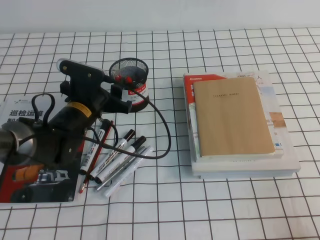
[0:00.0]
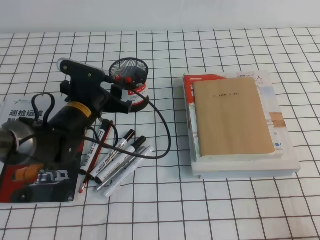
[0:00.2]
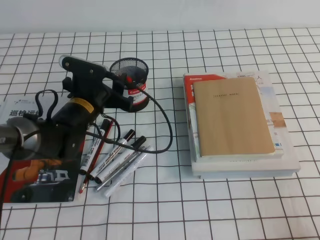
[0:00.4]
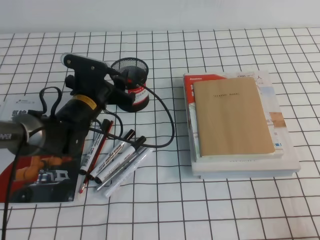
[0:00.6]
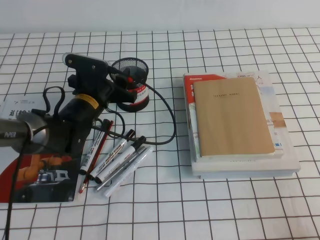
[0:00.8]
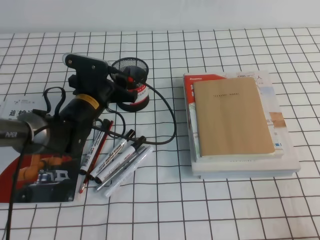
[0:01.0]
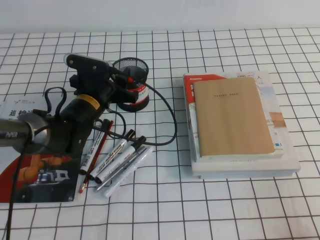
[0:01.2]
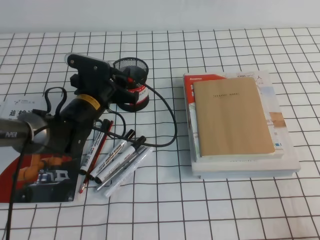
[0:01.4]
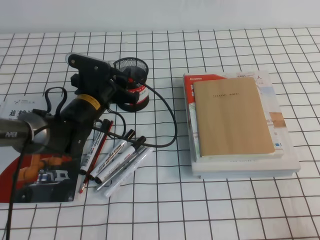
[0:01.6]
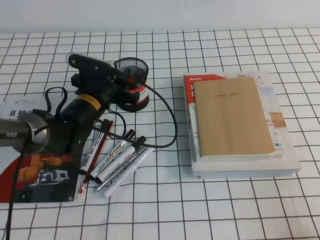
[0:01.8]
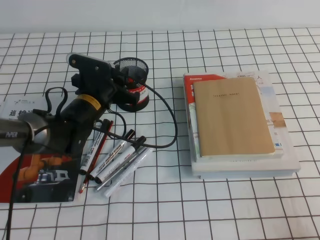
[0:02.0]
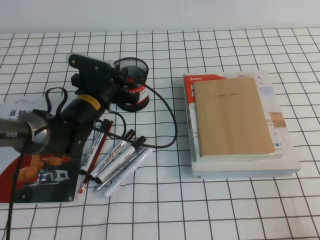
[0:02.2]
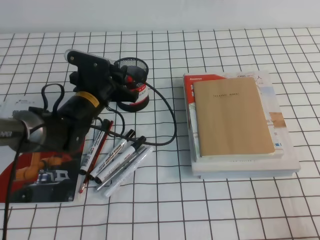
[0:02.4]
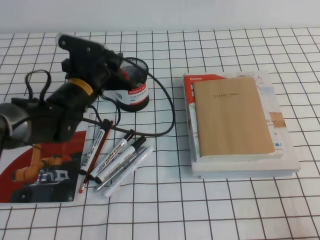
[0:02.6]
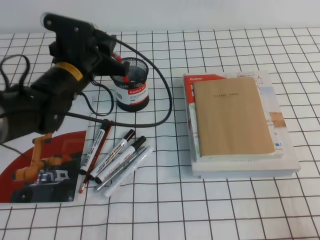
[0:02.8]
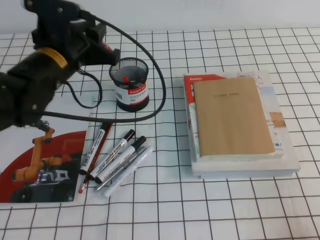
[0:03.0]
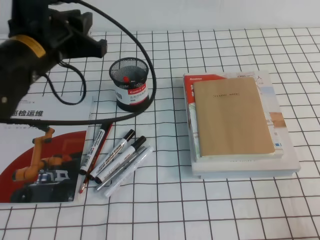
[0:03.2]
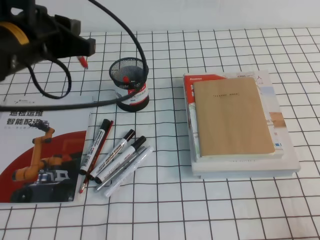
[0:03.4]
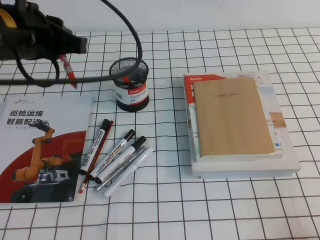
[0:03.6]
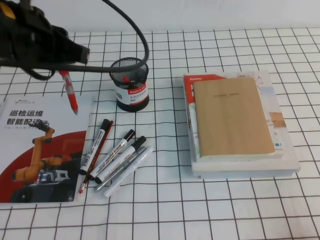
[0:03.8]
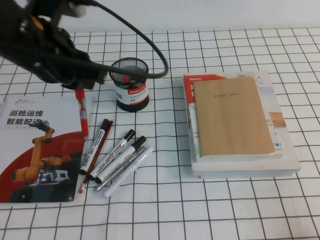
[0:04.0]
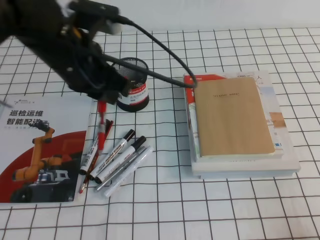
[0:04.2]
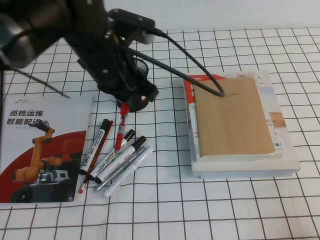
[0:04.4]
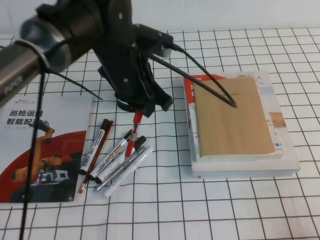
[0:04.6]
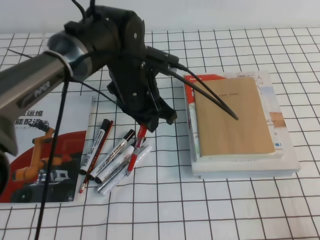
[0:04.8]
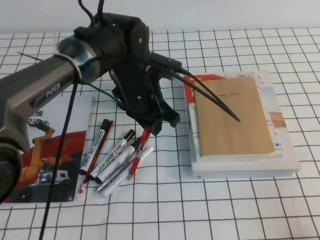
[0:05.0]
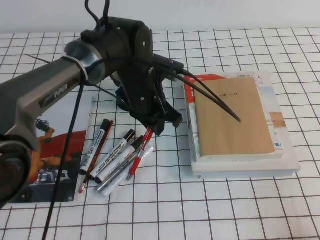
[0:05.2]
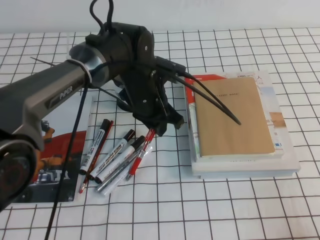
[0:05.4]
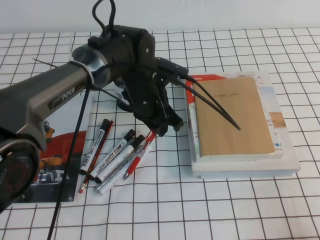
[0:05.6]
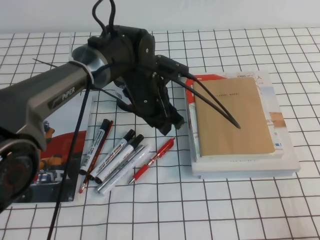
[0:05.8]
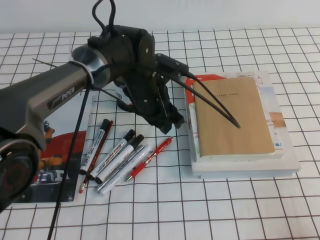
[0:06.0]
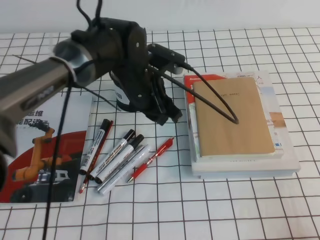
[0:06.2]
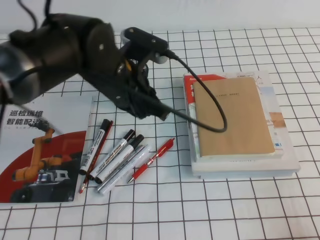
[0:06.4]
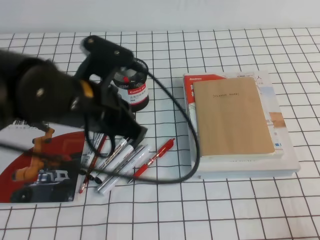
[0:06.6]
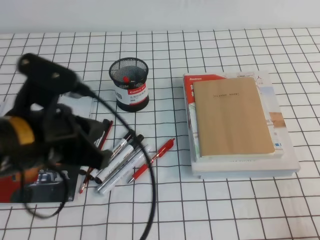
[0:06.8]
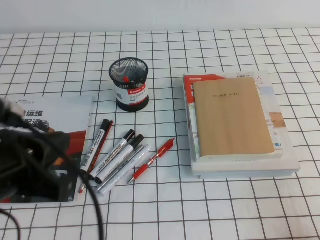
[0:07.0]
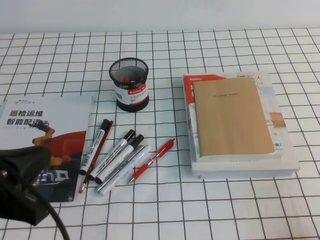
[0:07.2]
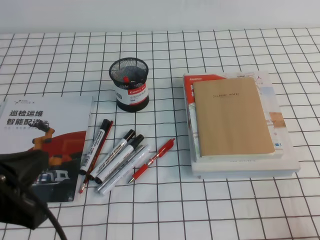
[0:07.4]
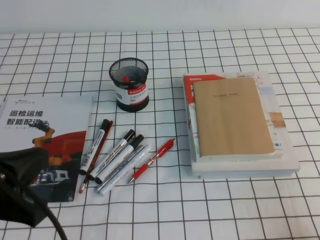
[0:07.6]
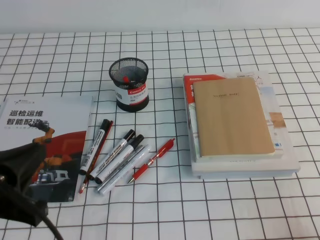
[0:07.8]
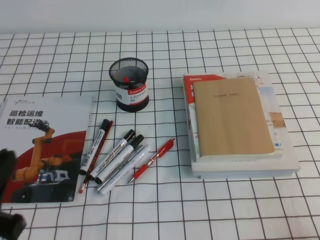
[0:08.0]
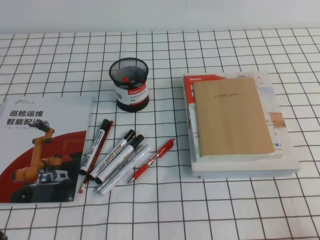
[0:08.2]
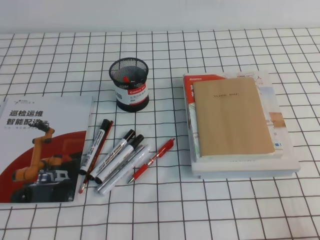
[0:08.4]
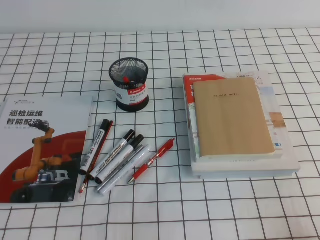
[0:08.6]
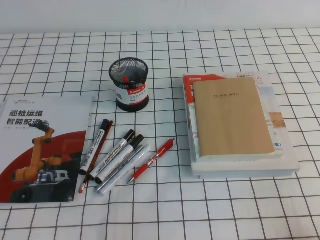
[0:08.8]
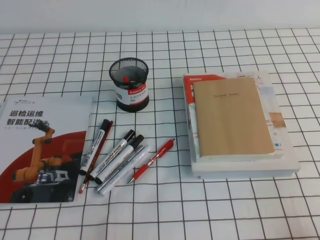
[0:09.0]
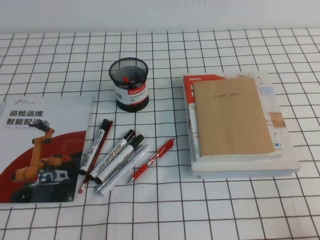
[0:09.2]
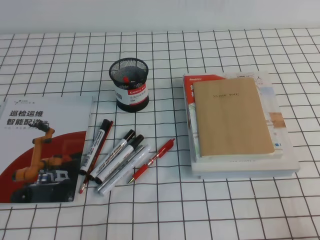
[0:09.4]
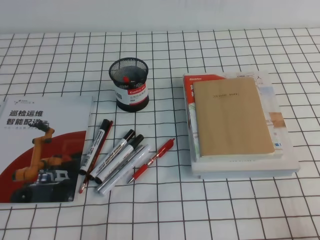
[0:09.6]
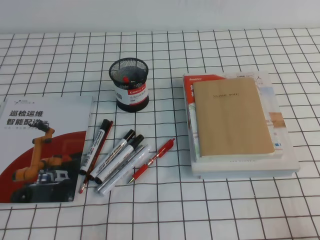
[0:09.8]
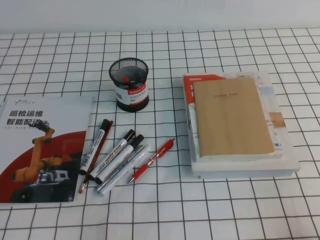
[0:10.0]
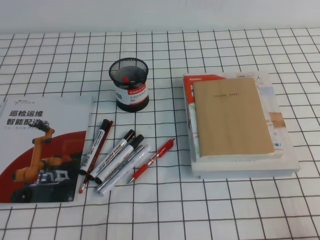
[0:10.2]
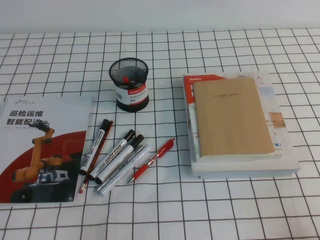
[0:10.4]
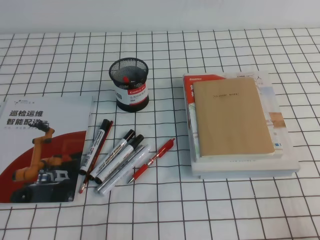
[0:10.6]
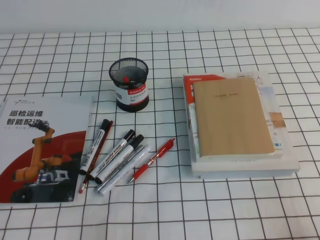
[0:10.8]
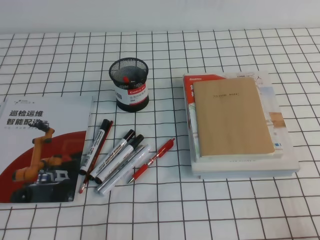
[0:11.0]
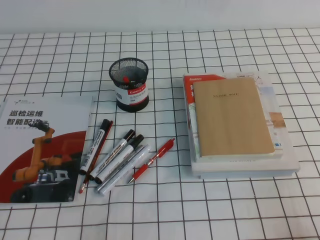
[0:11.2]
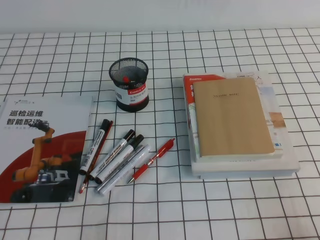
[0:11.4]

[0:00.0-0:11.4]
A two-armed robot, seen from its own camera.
Step, 0:00.0 to 0:11.4: Pick up the pen from the pen holder.
0:00.0 to 0:01.4: There are only small adjustments of the grippers.
0:01.4 to 0:02.8: The left gripper is displaced upward by some 5 cm, and closes.
0:02.8 to 0:04.2: The left gripper is displaced upward and backward by roughly 15 cm.
0:04.2 to 0:05.6: The left gripper moves downward, to the right and forward, approximately 20 cm.
0:05.6 to 0:07.2: The left gripper moves backward, to the left and upward, some 30 cm.
0:07.2 to 0:08.6: The left gripper moves downward, to the left and backward, some 15 cm.
0:10.0 to 0:11.4: Both grippers stay put.

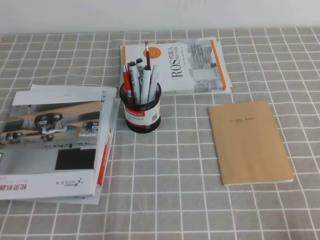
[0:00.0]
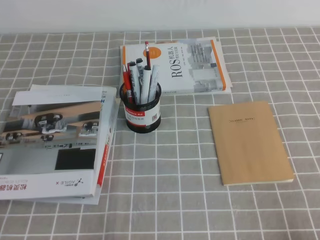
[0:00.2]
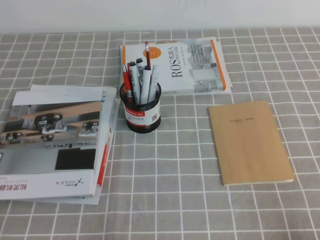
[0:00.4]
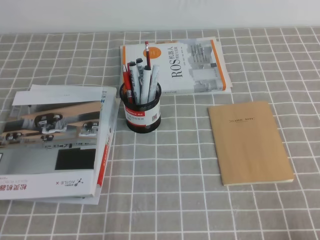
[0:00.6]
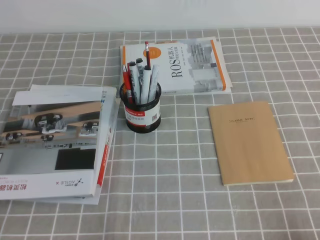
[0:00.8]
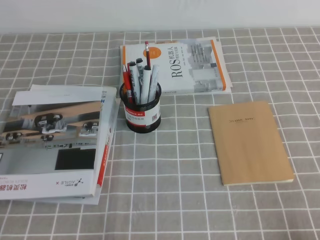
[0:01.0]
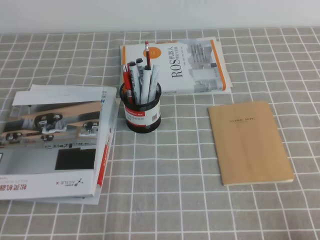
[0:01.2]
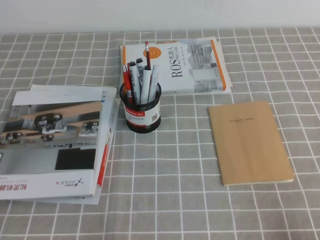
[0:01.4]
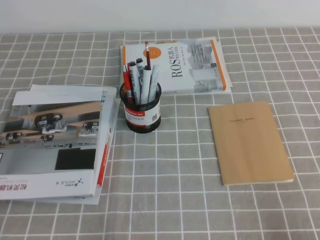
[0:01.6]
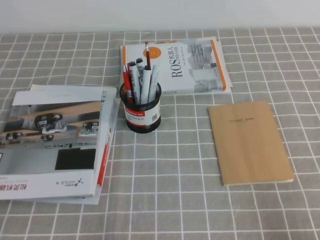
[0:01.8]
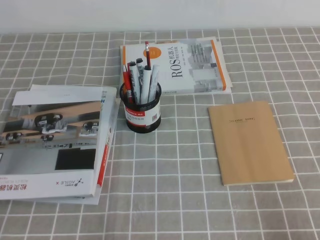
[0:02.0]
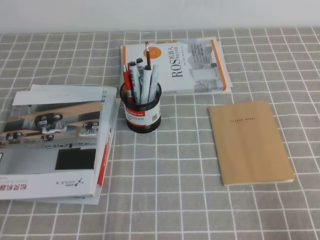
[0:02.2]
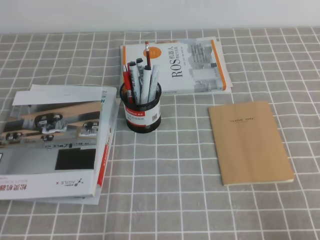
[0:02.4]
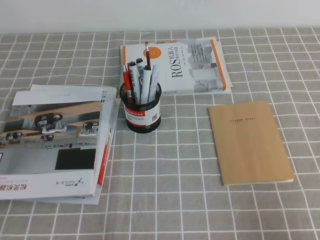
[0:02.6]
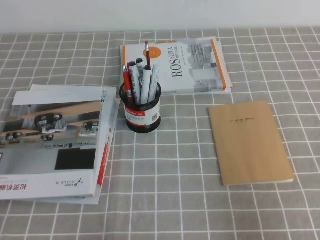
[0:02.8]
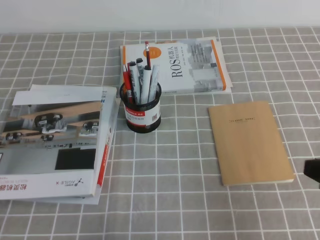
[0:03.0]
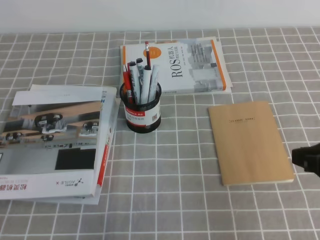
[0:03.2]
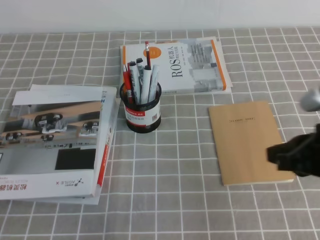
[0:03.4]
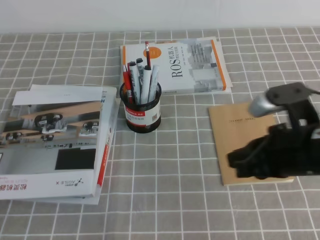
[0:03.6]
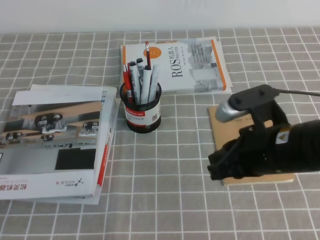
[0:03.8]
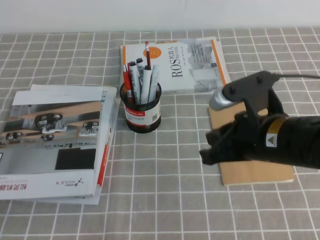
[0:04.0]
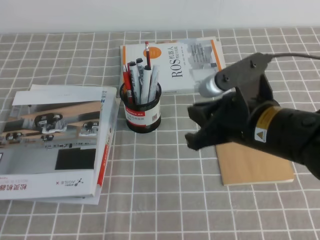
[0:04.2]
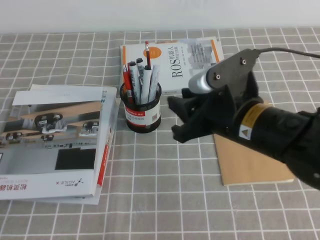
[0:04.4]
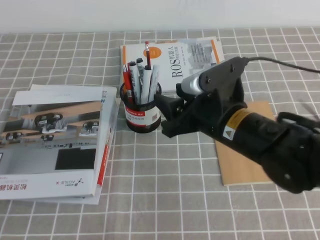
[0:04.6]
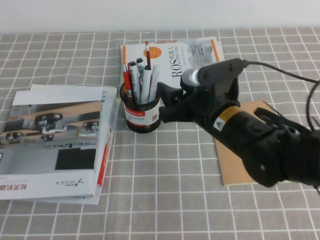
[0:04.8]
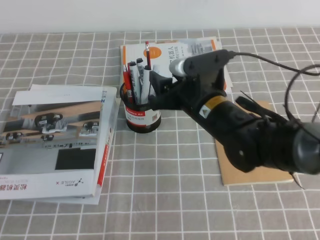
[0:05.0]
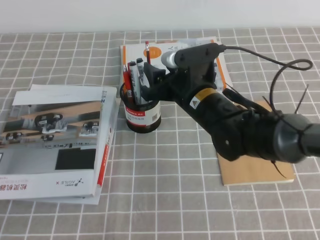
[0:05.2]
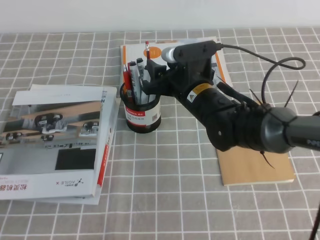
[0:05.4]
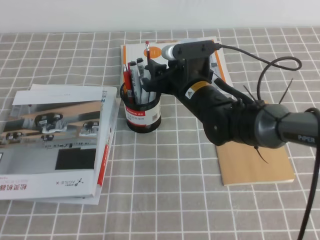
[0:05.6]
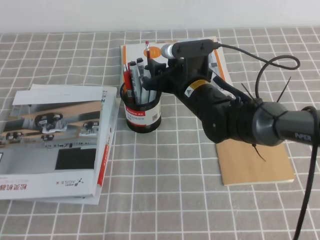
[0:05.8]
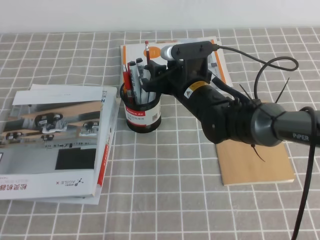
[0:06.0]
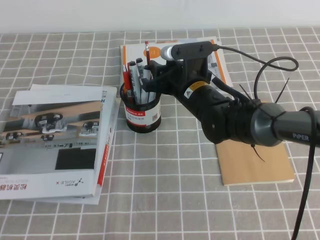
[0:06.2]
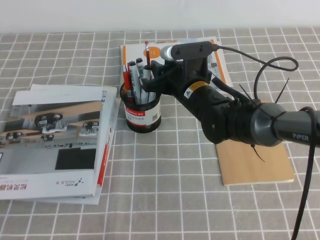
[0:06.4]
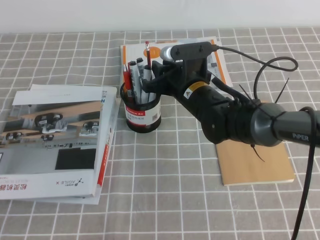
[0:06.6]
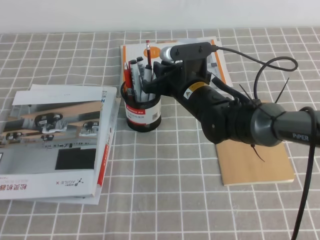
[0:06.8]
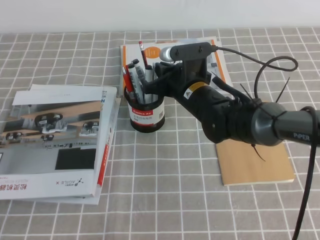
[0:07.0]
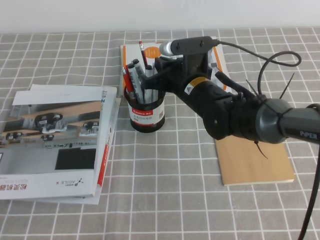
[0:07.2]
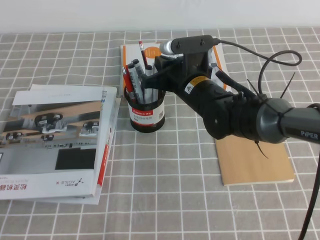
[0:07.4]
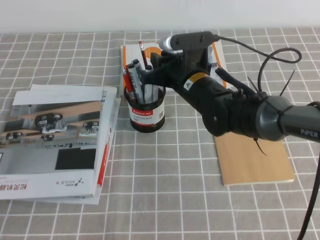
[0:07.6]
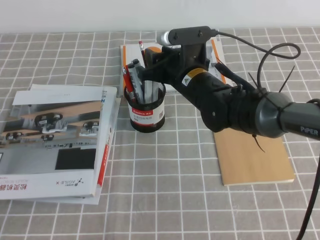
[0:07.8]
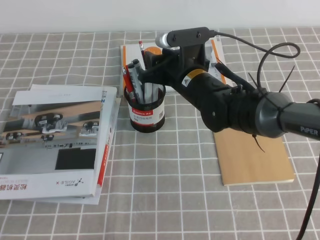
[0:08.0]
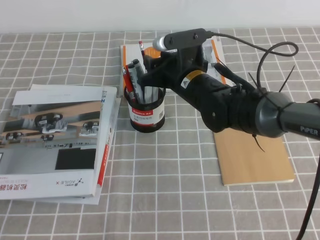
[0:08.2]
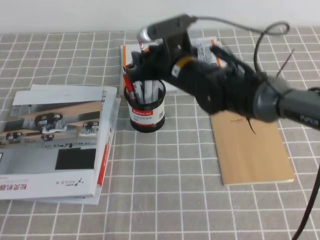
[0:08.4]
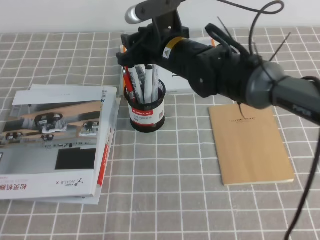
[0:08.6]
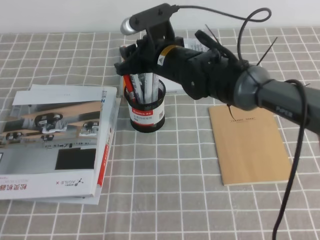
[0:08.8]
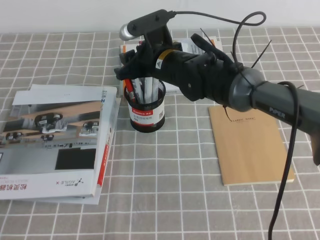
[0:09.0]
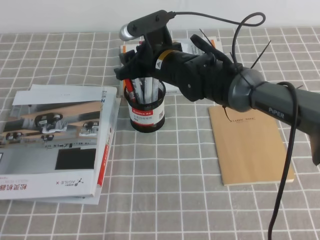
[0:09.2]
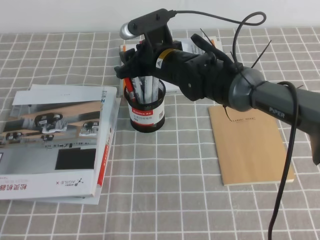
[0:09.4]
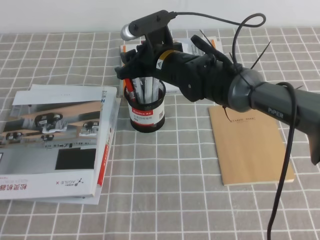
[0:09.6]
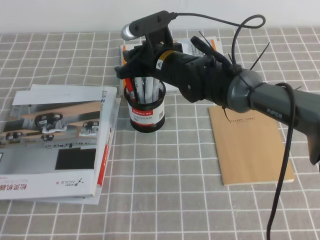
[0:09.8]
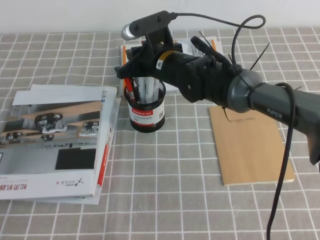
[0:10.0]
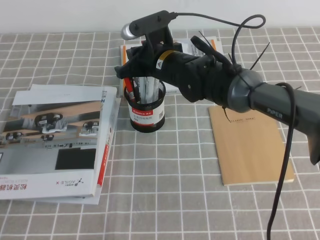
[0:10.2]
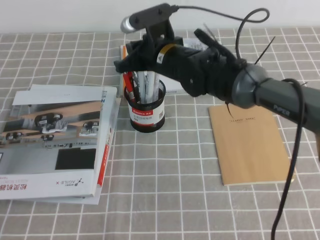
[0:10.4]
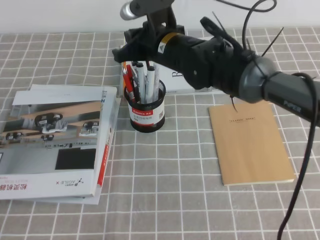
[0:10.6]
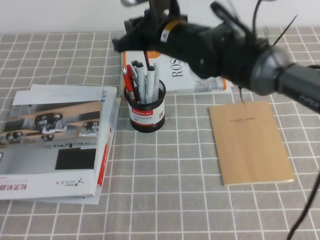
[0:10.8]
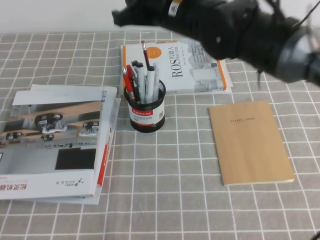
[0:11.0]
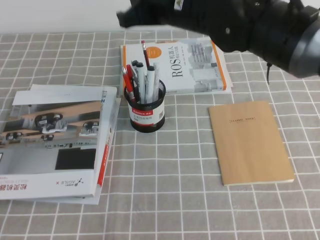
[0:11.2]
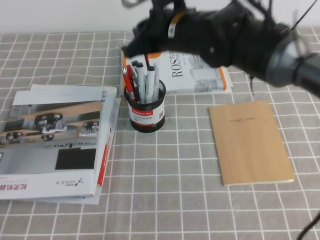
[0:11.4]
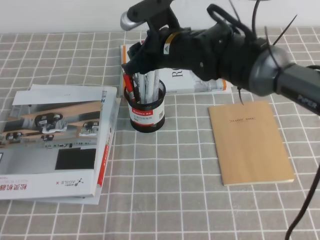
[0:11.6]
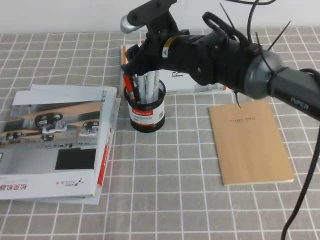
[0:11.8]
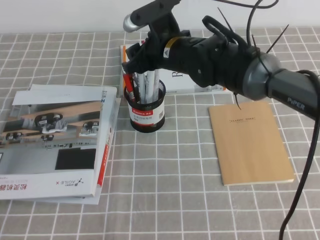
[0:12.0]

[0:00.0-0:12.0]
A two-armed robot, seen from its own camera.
0:01.6 to 0:03.0: The right gripper is displaced upward and forward by some 10 cm.
0:03.0 to 0:04.4: The right gripper heads to the left and forward, covering about 20 cm, and opens up.
0:04.4 to 0:06.0: The right gripper travels forward, downward and to the left by approximately 15 cm, and opens.
0:06.0 to 0:07.6: The right gripper closes.
0:07.6 to 0:09.0: The right gripper ends up approximately 5 cm from where it was, and opens up.
0:09.0 to 0:10.4: The right gripper closes up.
0:10.4 to 0:12.0: The right gripper moves about 10 cm upward and comes back, and opens up.
